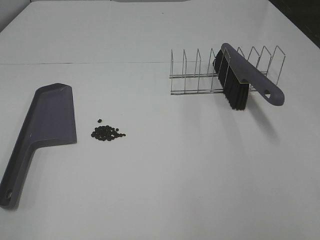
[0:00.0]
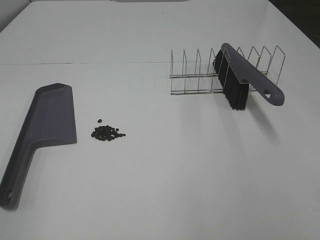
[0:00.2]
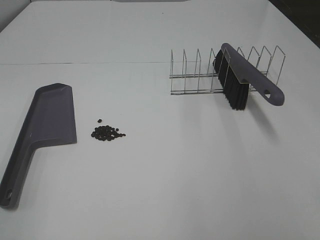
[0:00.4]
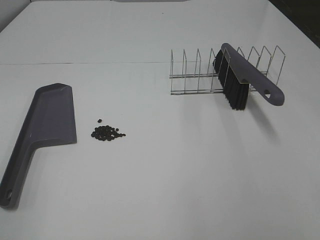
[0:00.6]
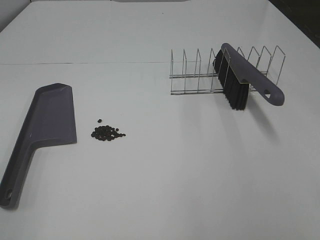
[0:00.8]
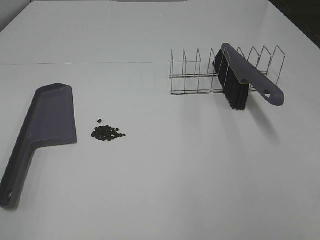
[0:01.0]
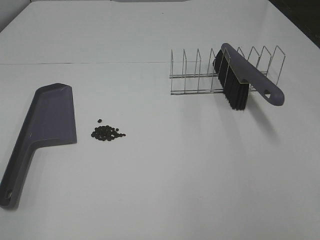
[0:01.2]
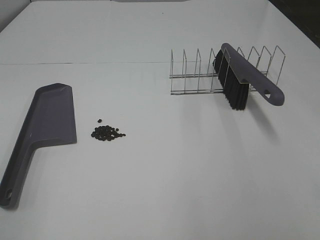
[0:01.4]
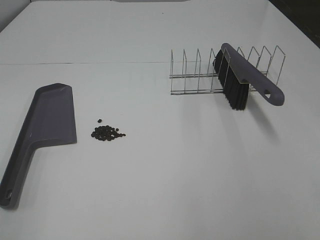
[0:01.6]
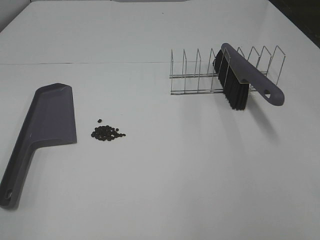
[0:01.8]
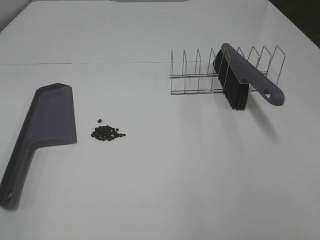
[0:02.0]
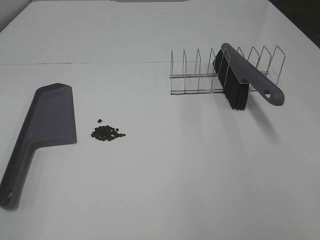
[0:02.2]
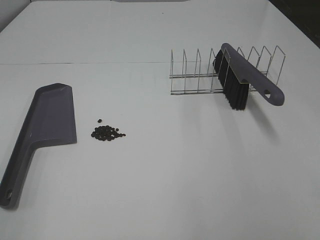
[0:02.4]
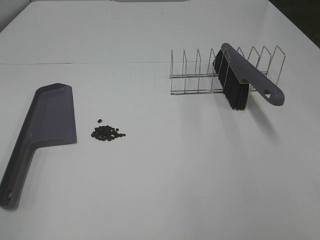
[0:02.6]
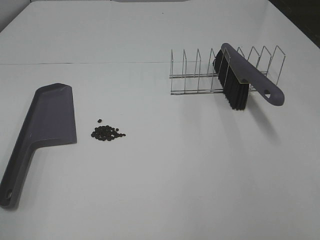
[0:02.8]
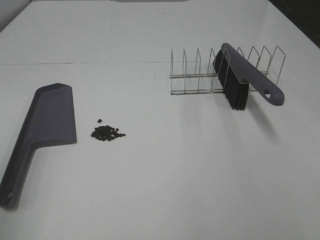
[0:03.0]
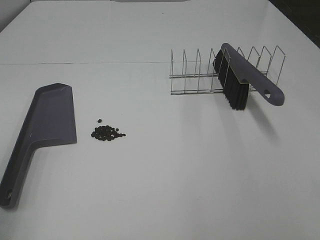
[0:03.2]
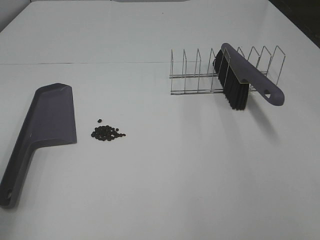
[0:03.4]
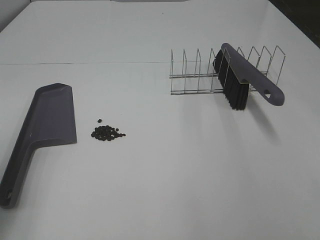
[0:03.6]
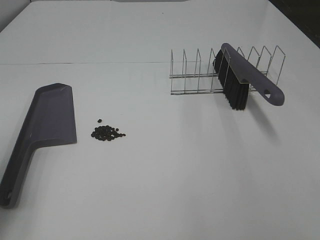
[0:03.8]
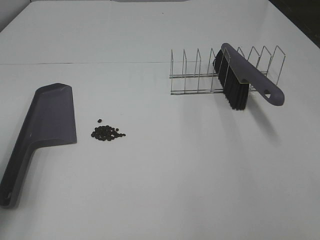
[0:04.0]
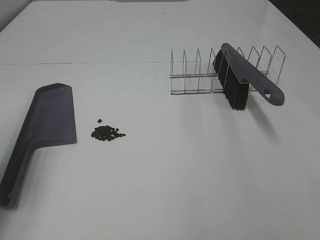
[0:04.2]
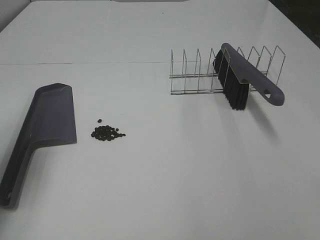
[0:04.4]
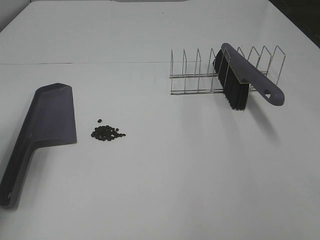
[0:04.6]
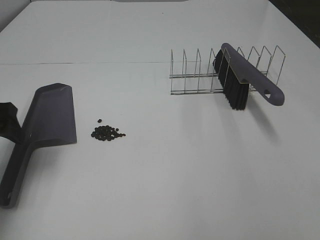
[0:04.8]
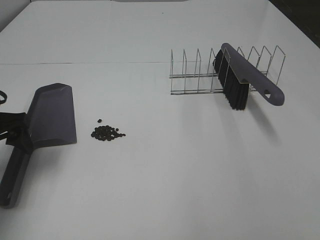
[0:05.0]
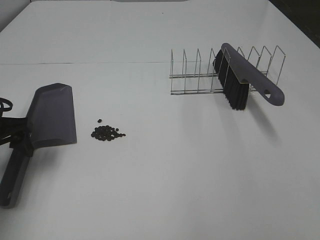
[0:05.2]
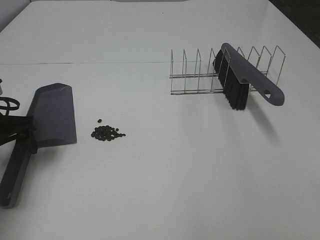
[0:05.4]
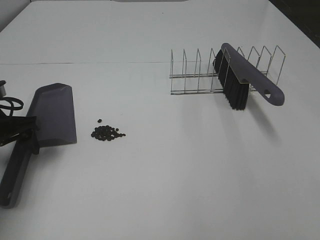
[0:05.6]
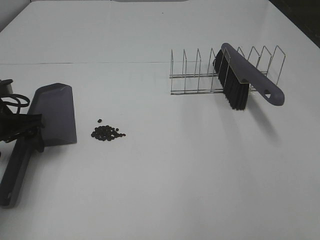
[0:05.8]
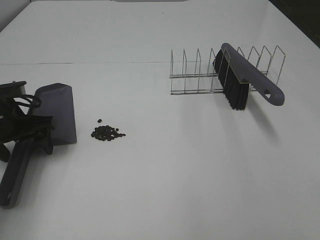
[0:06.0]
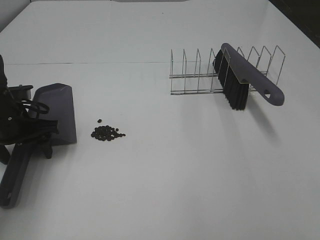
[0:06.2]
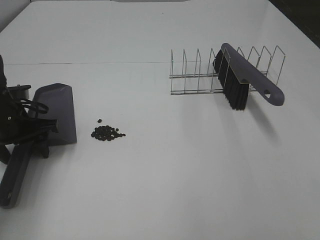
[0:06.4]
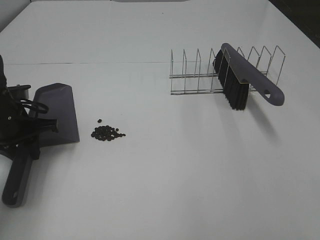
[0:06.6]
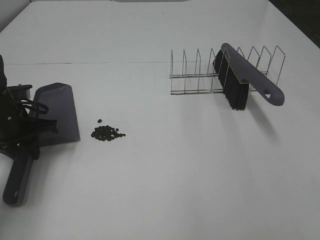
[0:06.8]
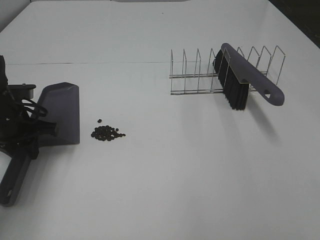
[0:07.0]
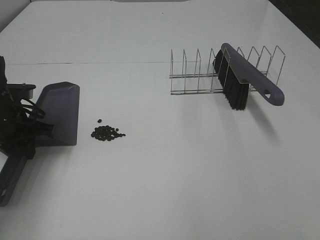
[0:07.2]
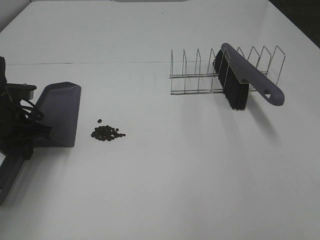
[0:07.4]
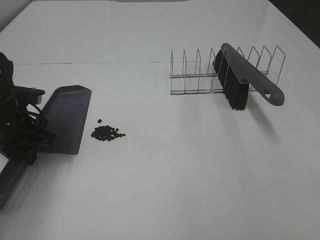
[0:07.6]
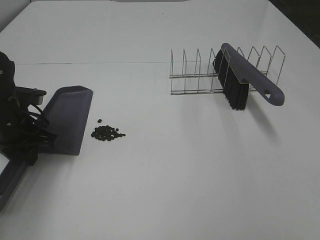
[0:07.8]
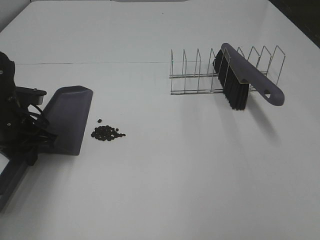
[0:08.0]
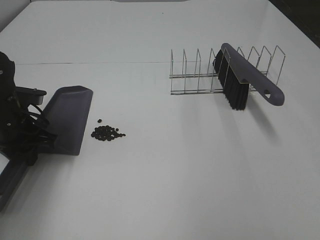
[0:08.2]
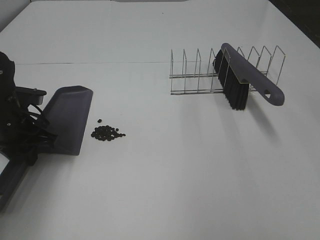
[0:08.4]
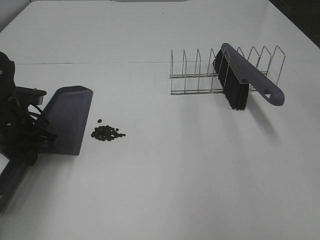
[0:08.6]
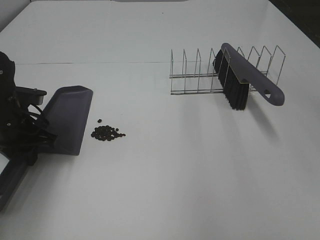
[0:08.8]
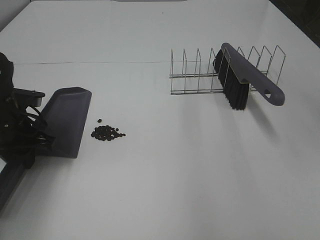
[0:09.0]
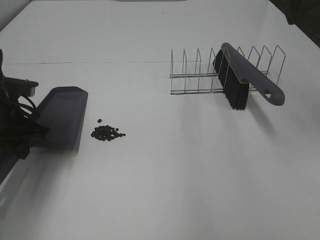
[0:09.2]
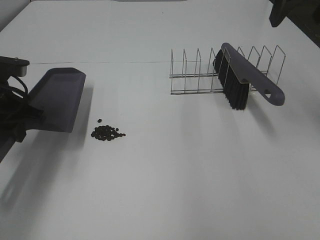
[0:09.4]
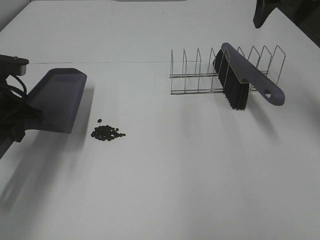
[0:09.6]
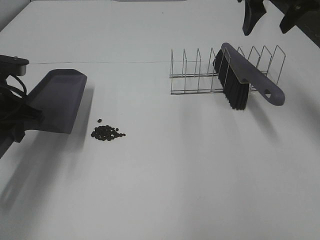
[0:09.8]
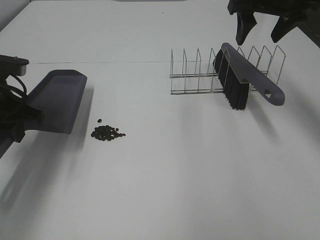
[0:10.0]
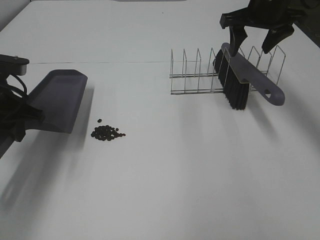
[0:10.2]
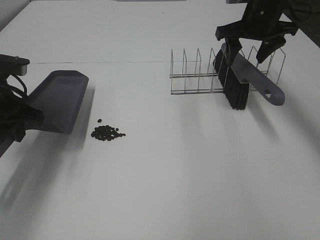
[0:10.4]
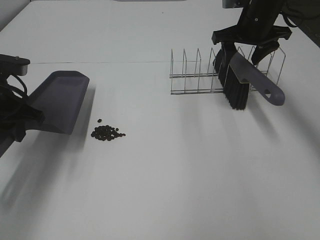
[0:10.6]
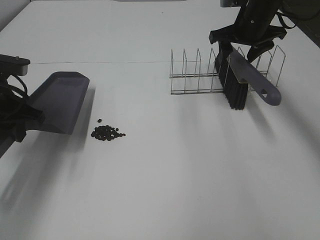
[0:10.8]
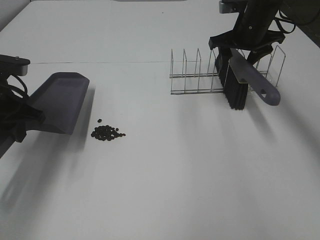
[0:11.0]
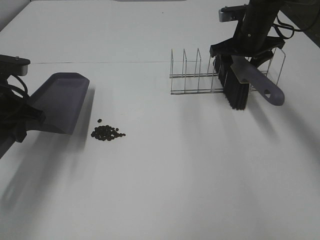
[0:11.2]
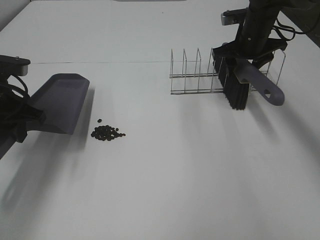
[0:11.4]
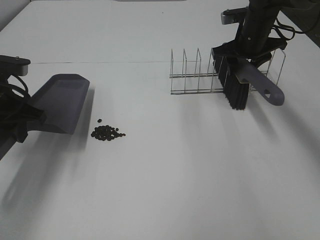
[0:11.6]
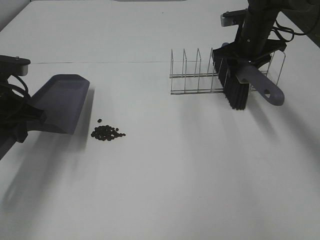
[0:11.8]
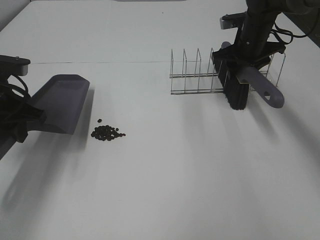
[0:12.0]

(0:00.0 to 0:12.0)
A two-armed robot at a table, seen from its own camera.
Task of the whole recording: Sweep Coffee Bean.
Step, 0:00.0 - 0:07.0: Left hand: grab the dustpan.
0:00.0 - 0:01.6: Both grippers stay about where they are.
0:03.0 - 0:04.4: The left gripper is displaced forward by roughly 20 cm.
0:04.4 - 0:06.0: The left gripper shifts roughly 15 cm downward and forward.
0:06.0 - 0:07.6: The left gripper closes its fingers.
0:09.0 - 0:10.4: The right gripper shifts roughly 25 cm forward and downward. Meanwhile the left gripper goes roughly 5 cm upward.
0:10.4 - 0:12.0: The right gripper goes approximately 5 cm downward.

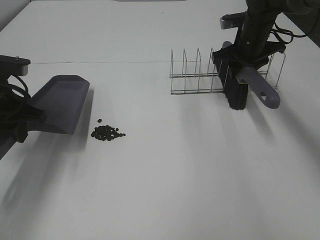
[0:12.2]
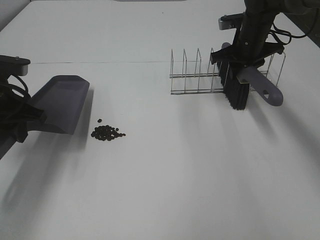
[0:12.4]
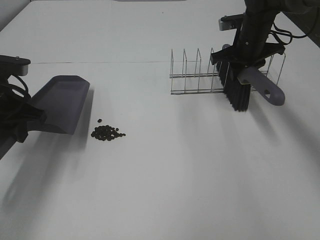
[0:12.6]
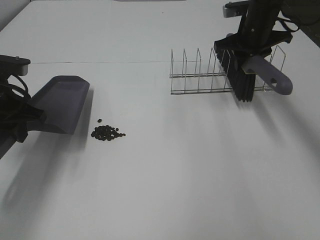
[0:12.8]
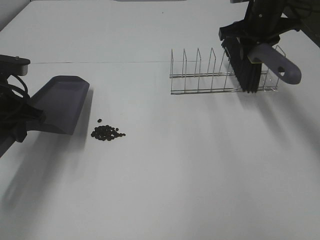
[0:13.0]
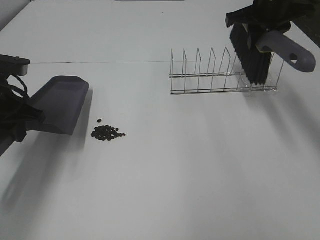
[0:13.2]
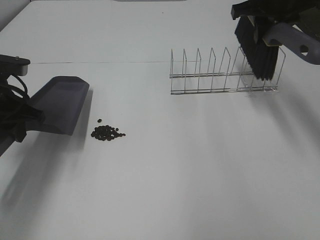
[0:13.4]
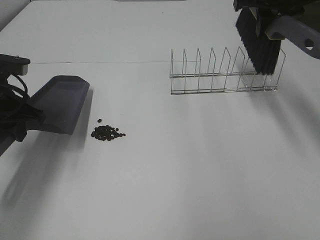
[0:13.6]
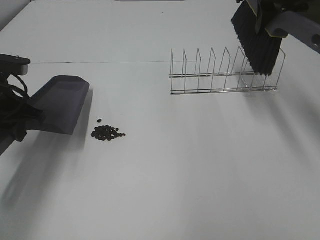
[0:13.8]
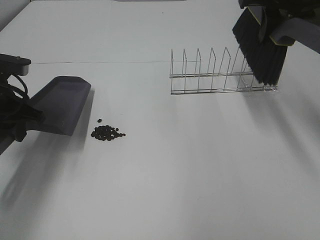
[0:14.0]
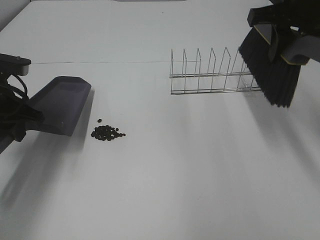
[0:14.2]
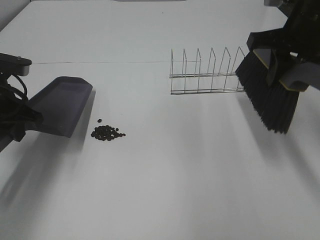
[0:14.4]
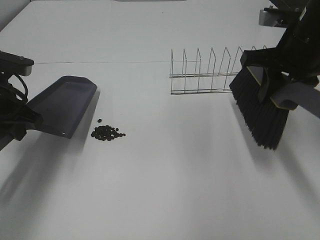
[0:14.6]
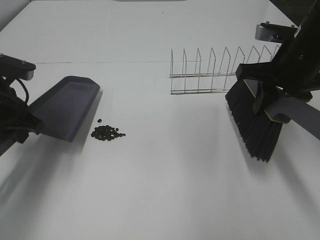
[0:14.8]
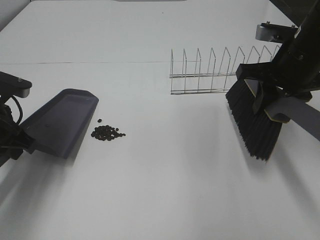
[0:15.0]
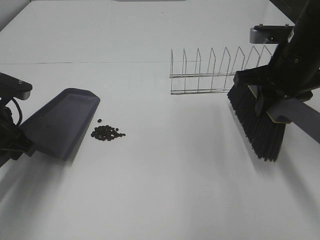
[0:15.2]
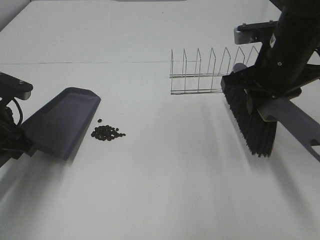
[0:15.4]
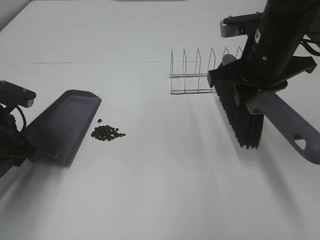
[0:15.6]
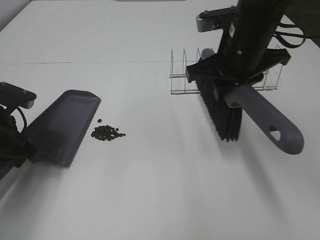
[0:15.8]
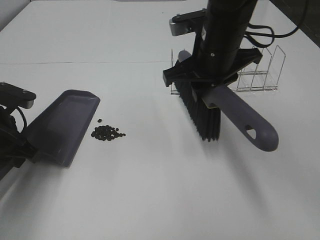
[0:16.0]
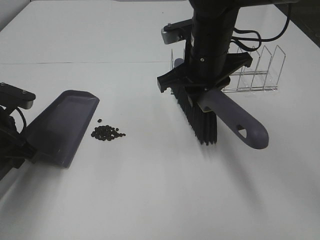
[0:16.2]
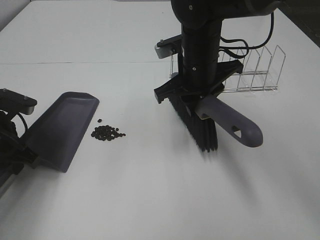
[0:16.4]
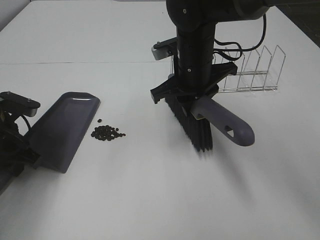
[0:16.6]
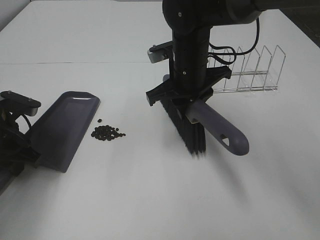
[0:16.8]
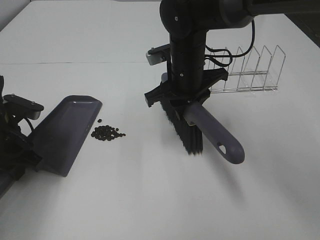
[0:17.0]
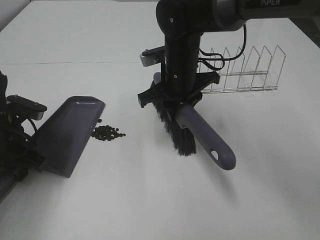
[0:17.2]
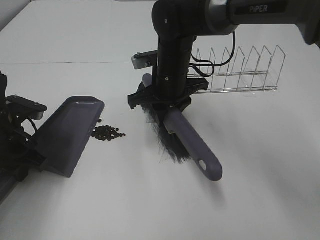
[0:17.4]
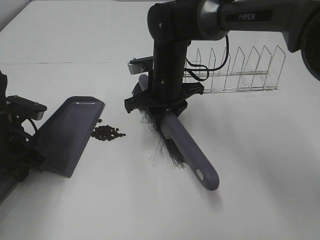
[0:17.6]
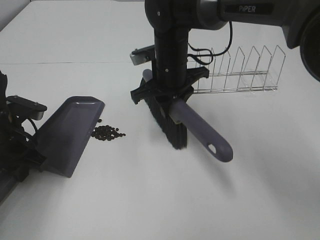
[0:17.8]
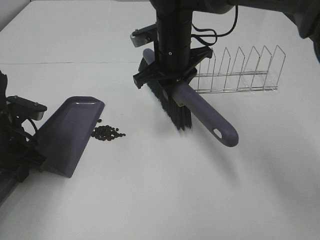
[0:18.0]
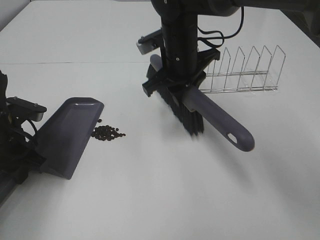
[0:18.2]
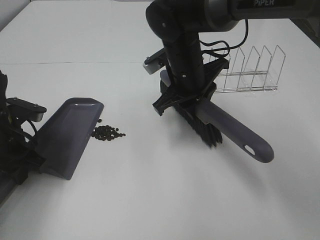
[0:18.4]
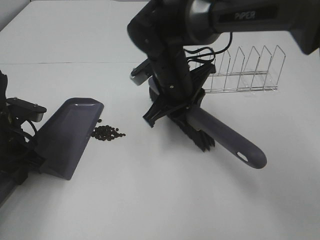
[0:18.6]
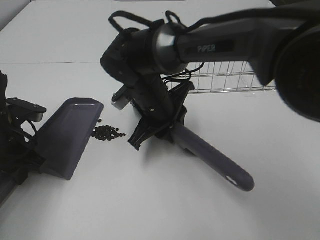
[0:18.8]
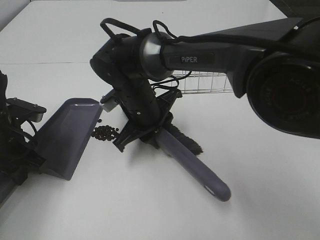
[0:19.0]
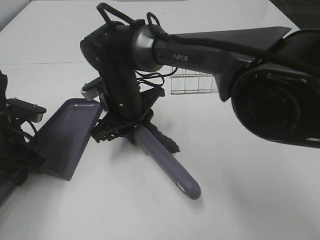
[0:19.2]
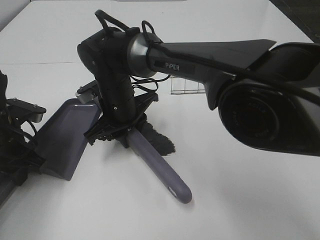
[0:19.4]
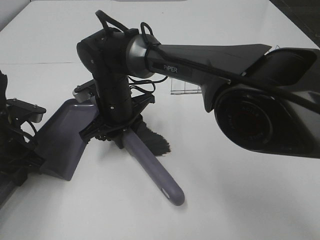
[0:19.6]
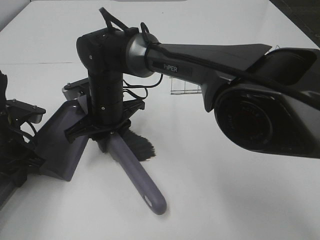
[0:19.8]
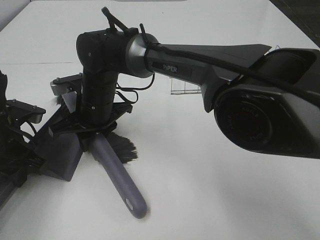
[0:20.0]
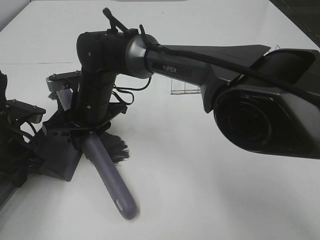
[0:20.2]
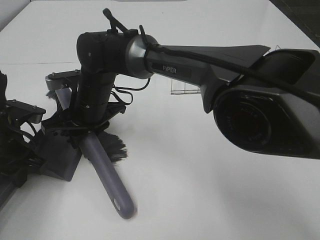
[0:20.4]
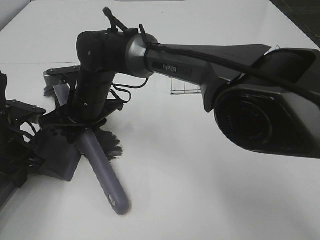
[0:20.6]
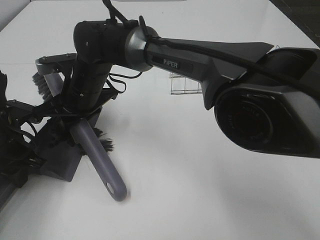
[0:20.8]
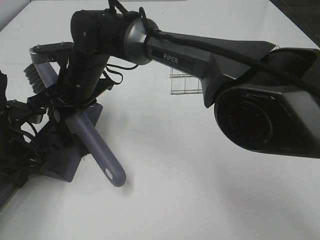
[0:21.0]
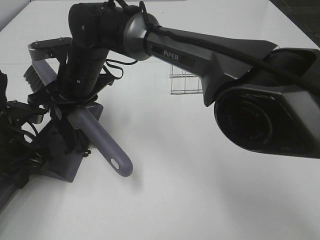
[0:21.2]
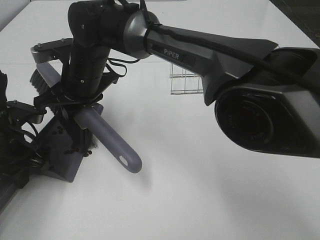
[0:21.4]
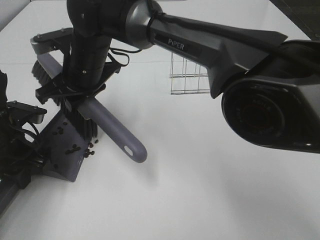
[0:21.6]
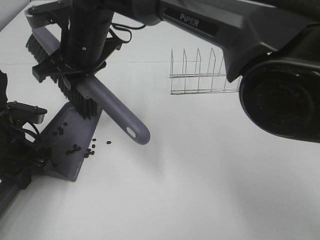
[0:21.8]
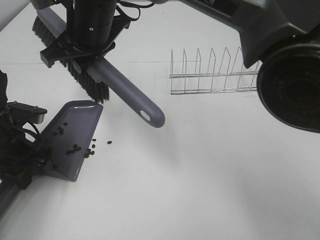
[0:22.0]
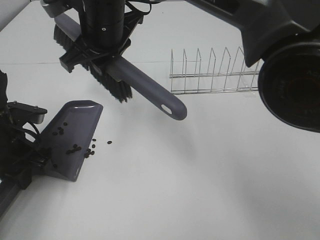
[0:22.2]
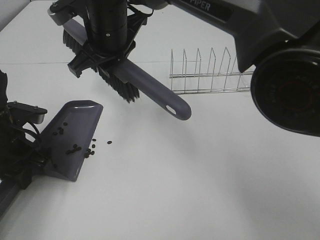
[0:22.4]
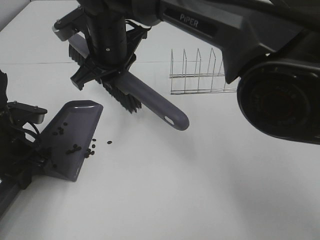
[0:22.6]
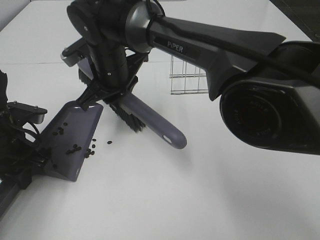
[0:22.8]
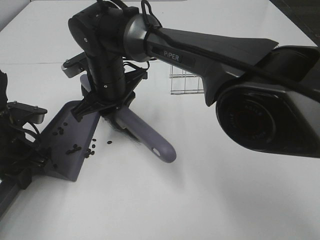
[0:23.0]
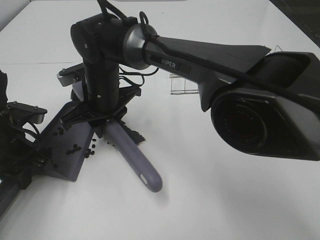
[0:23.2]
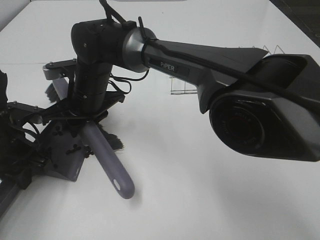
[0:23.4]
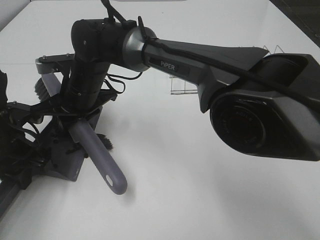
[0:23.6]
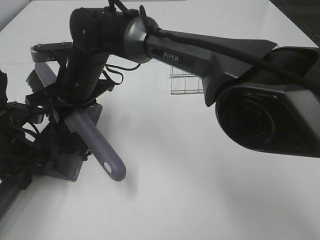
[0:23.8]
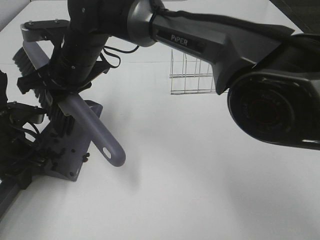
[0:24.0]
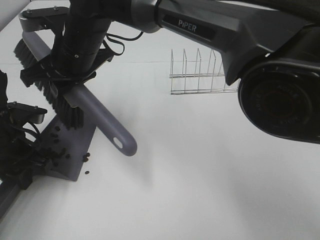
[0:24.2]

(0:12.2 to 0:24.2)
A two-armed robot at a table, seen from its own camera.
Task of the whole recording: Sweep Coffee Bean.
Step, 0:12.2 - 0:17.4: Left hand: move the dustpan to the left side of the coffee beans.
0:12.2 - 0:13.8: The right gripper moves upward and backward, approximately 15 cm.
0:13.8 - 0:15.2: The right gripper is displaced backward and downward by about 15 cm.
0:15.2 - 0:16.6: The right gripper goes about 15 cm to the left.
0:16.6 - 0:18.2: The grippers make only small movements.
0:18.2 - 0:19.8: The right gripper heads to the left and downward, covering approximately 15 cm.
0:19.8 - 0:21.2: The right gripper moves upward, about 5 cm.
0:21.2 - 0:22.6: The right gripper goes roughly 5 cm upward.
0:22.6 - 0:24.2: The right gripper travels downward and back again, some 10 cm each way.
